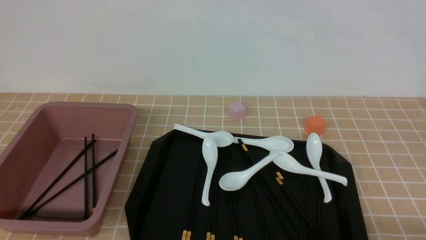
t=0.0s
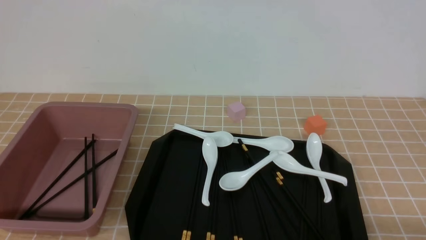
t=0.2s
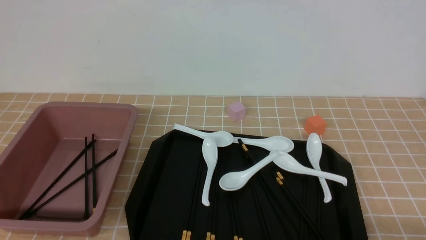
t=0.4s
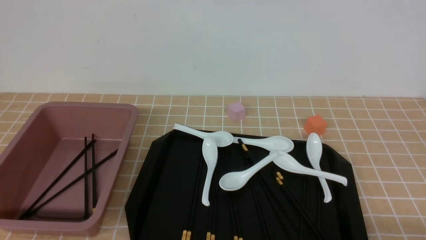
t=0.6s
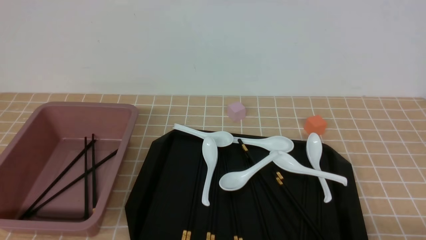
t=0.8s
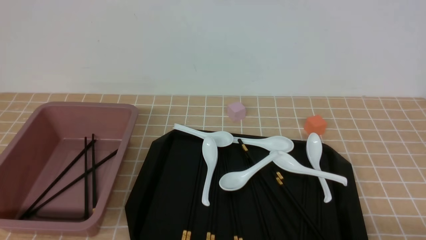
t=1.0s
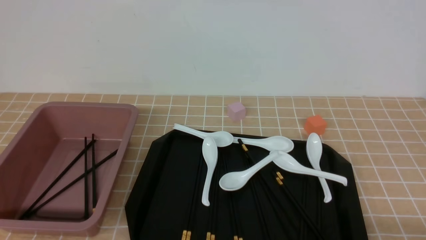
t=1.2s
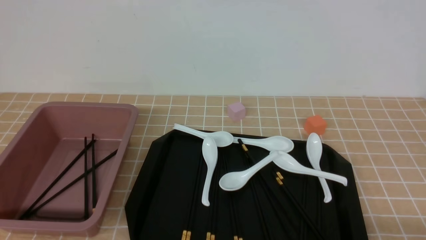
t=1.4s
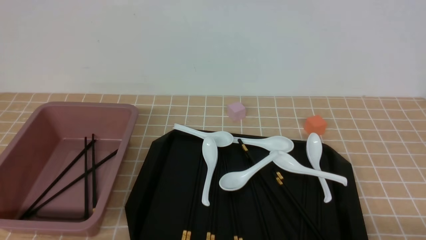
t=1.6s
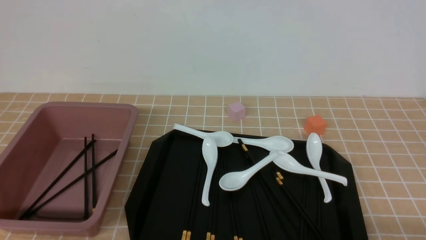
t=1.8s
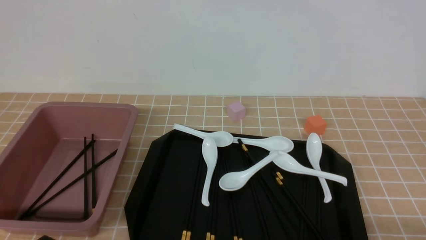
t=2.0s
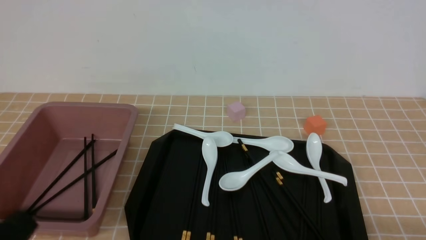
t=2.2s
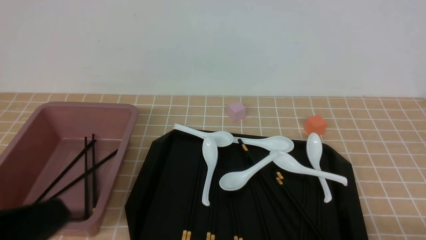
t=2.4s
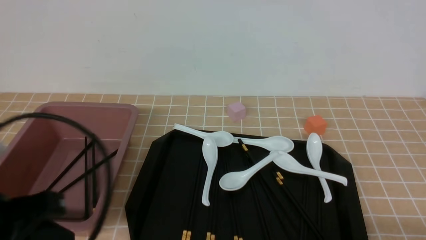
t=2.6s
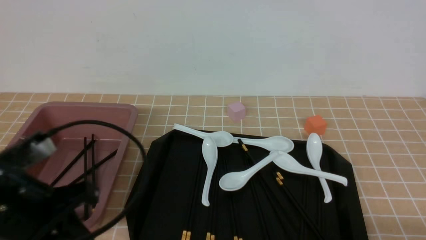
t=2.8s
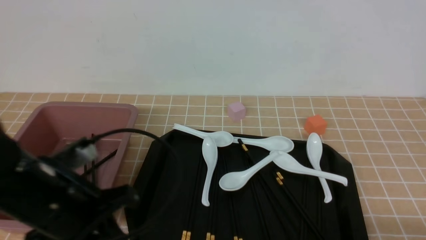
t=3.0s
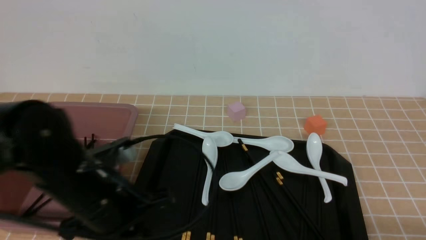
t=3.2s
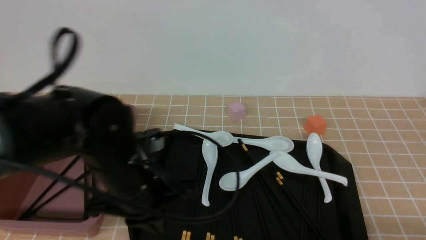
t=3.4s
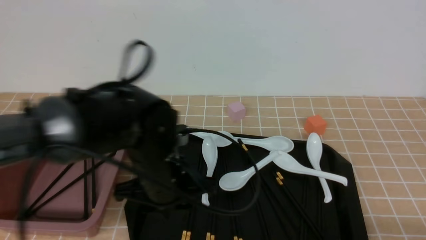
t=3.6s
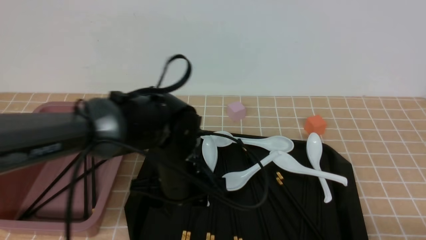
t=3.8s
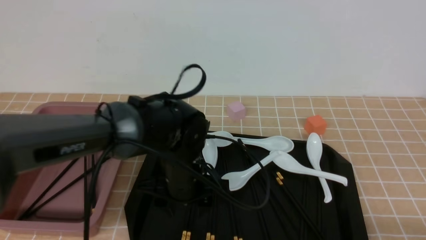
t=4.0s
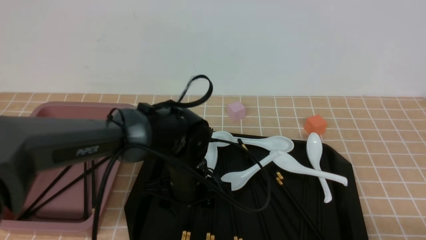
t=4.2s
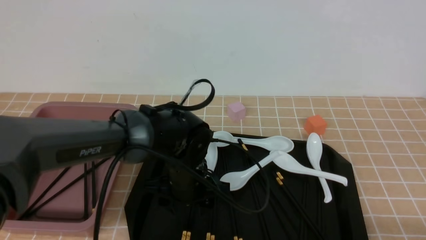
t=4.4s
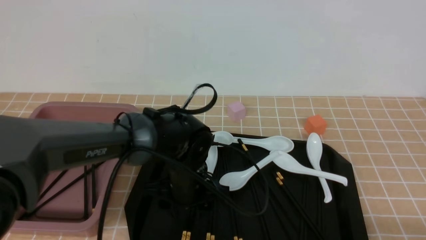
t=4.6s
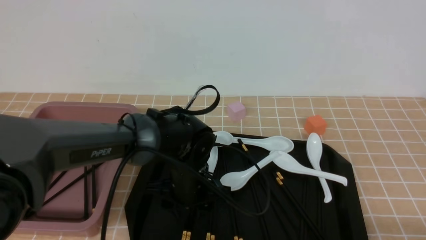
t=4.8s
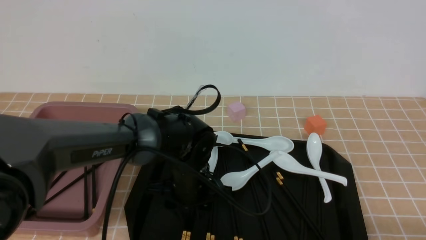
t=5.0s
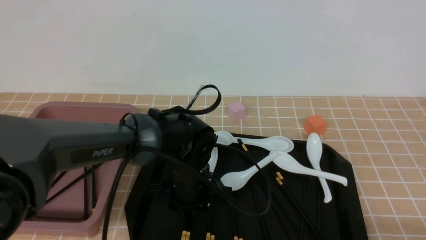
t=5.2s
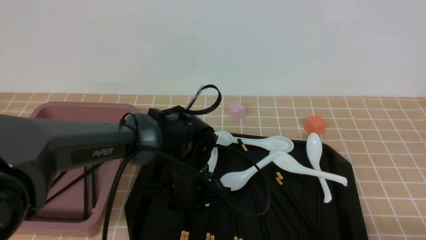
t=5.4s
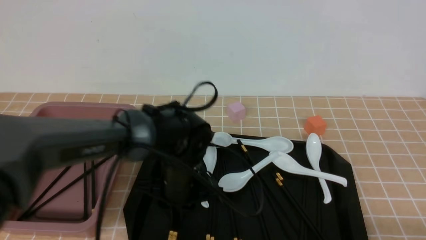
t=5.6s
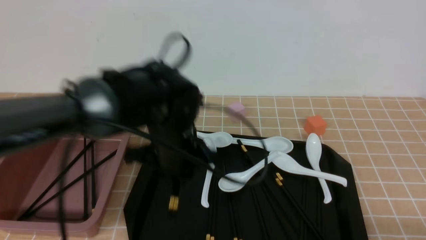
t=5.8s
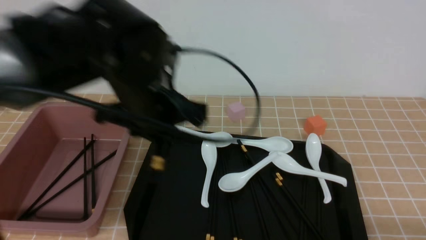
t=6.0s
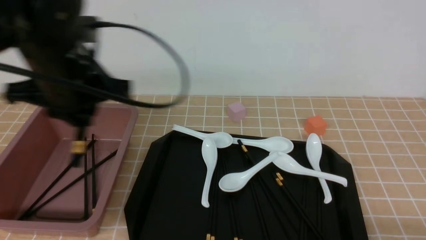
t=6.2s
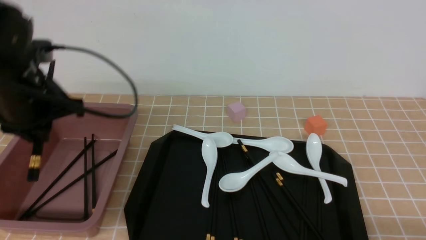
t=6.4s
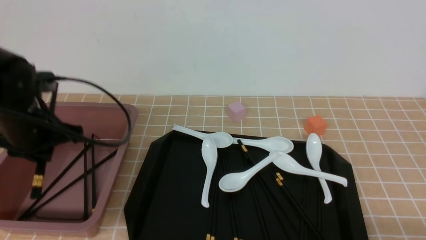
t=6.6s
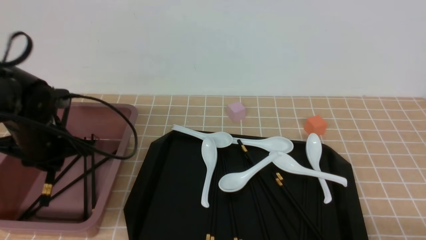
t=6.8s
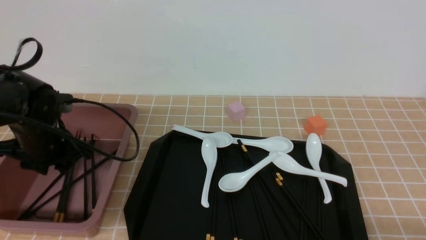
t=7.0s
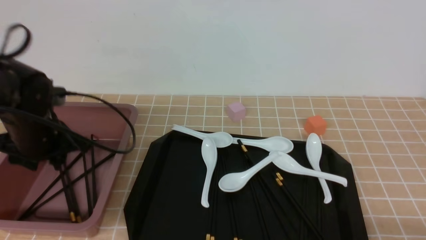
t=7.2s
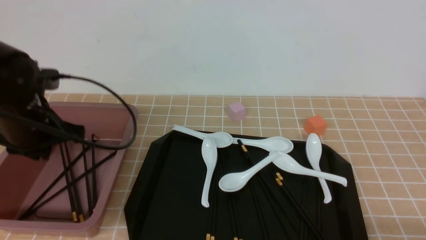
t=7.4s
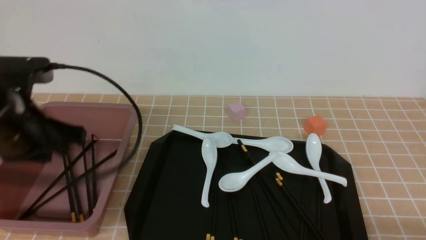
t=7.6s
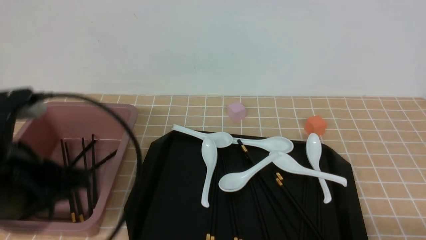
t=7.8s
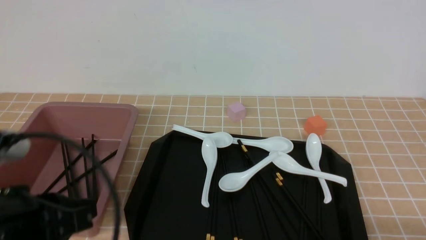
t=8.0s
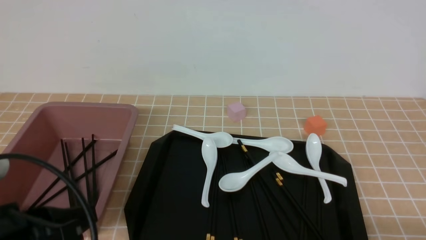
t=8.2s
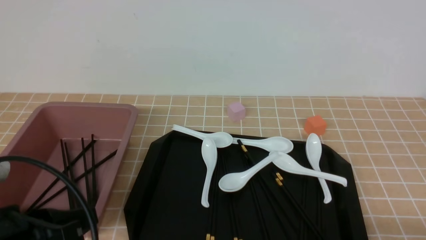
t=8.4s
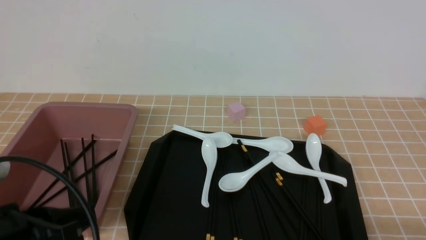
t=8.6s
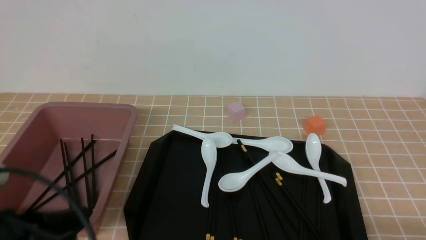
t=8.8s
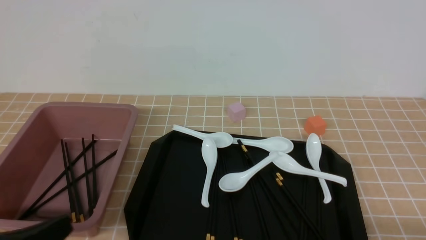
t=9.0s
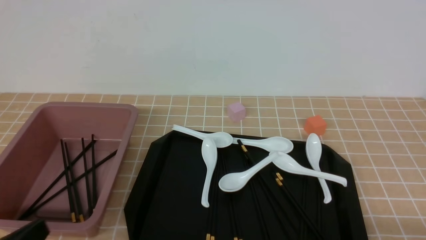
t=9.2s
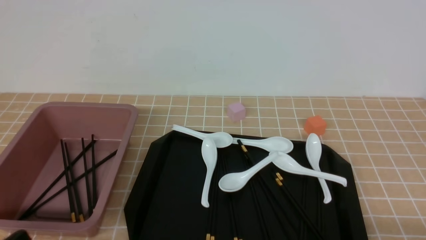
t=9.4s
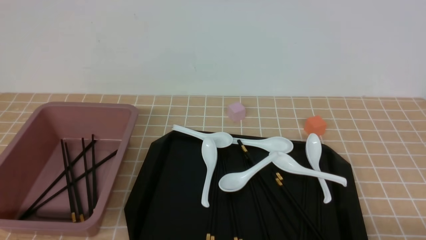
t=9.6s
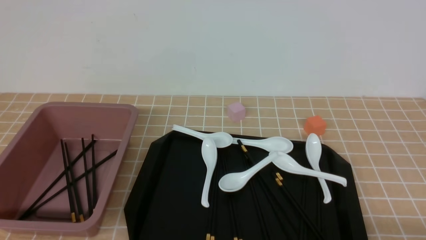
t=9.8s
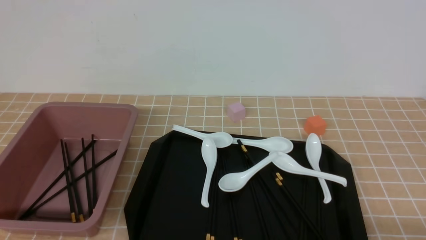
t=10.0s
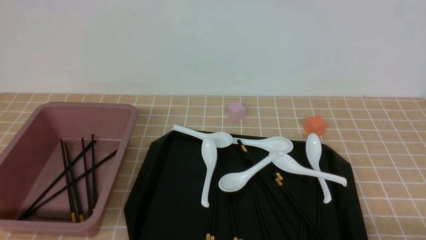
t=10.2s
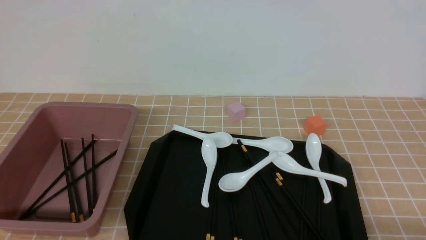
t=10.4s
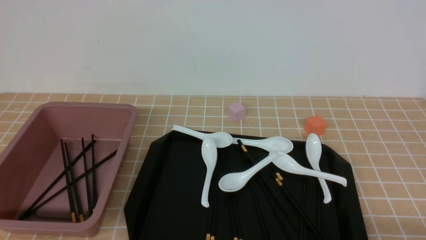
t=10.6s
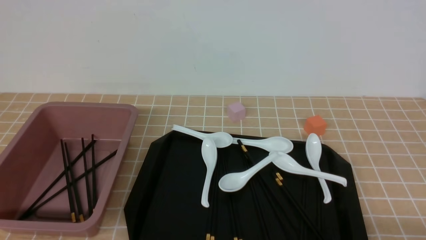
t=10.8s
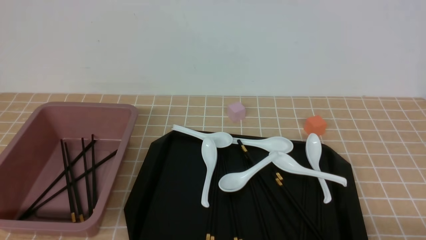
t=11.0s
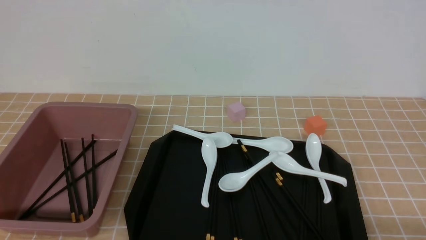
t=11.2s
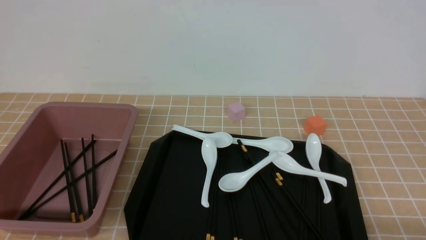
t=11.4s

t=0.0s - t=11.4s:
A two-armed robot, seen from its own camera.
Step, t=0.0s - t=5.8s: use the left arm to grab a pair of chopsticks.
Step, t=6.0s - t=7.4s: use the left arm to put the chopsticks into the lunch box.
t=1.4s - t=2.8s: The left gripper heads forward, upward and to the right, covering approximately 15 cm.
t=2.8s - t=4.2s: The left gripper heads to the right, forward and downward, covering some 25 cm, and opens up.
t=4.2s - t=5.6s: The left gripper closes.
t=5.6s - t=7.2s: The left gripper heads to the left, covering approximately 20 cm.
t=7.2s - t=8.6s: The left gripper shifts some 20 cm backward, and closes up.
t=8.6s - t=10.0s: The left gripper shifts about 10 cm downward, backward and to the left.
t=10.0s - t=11.4s: Neither gripper changes place.
